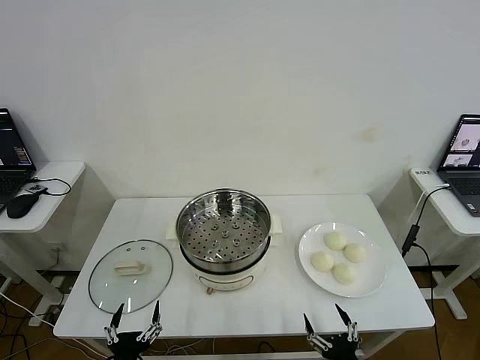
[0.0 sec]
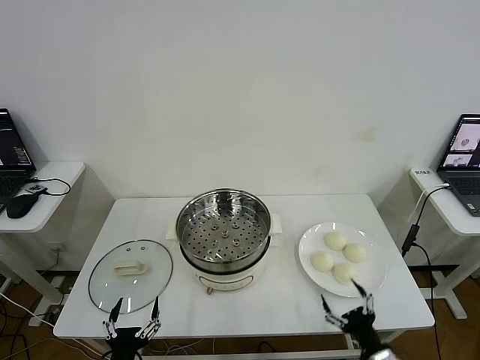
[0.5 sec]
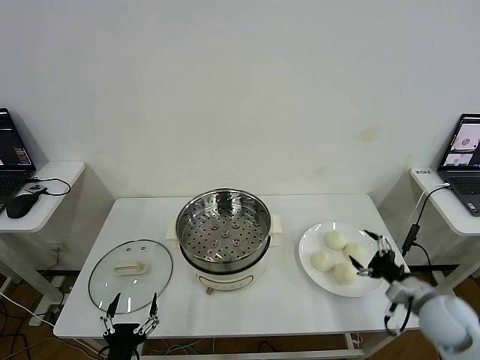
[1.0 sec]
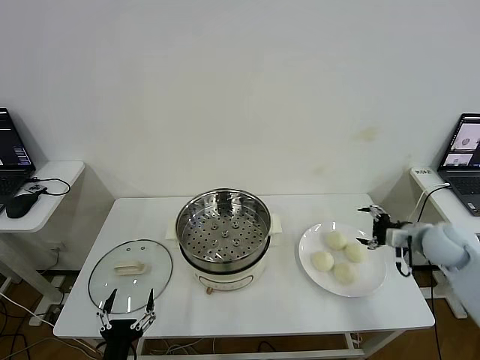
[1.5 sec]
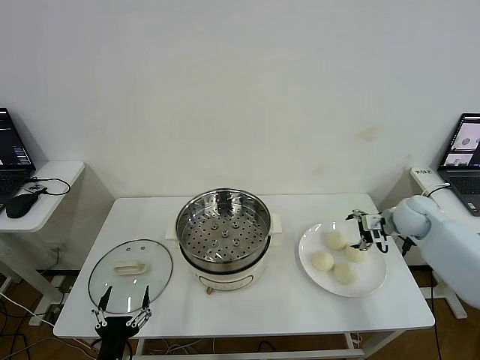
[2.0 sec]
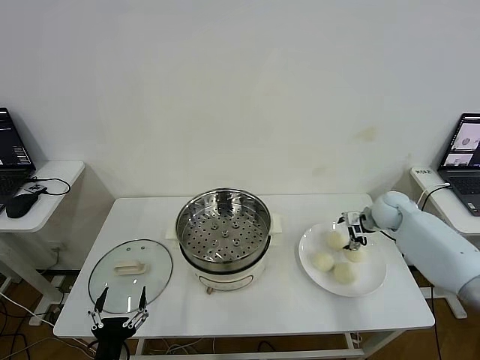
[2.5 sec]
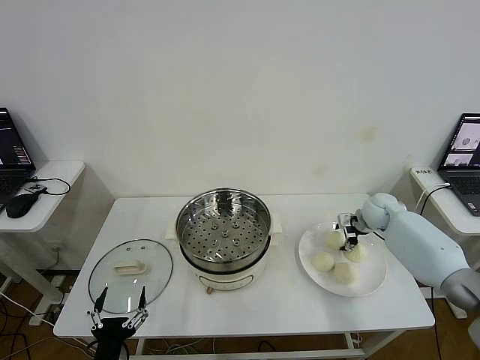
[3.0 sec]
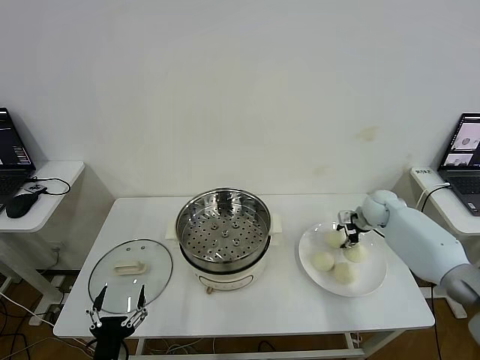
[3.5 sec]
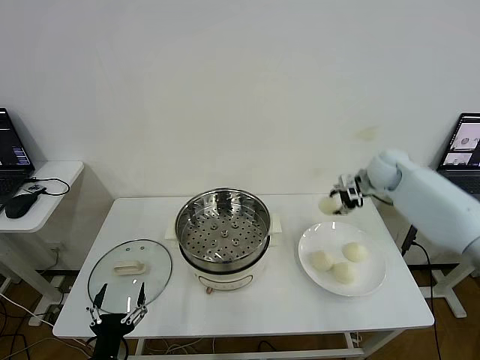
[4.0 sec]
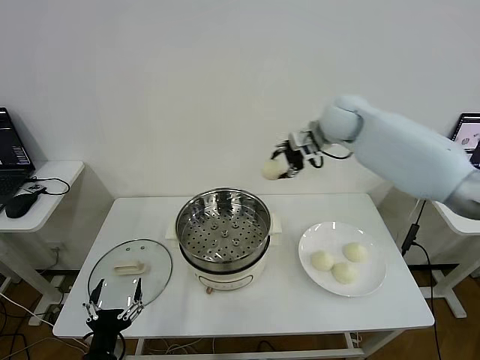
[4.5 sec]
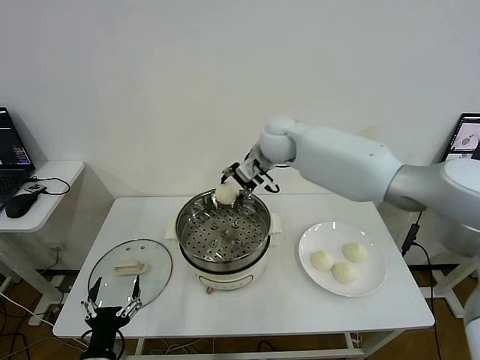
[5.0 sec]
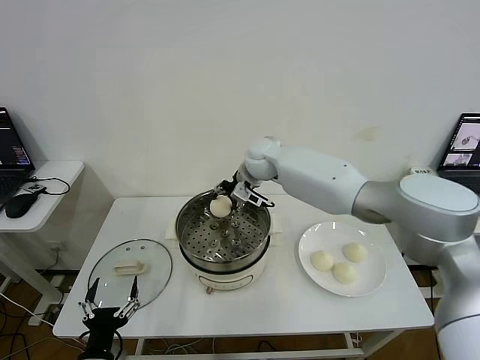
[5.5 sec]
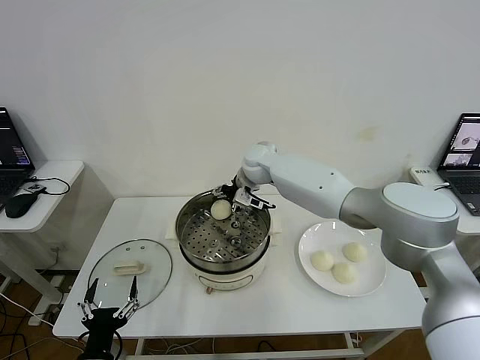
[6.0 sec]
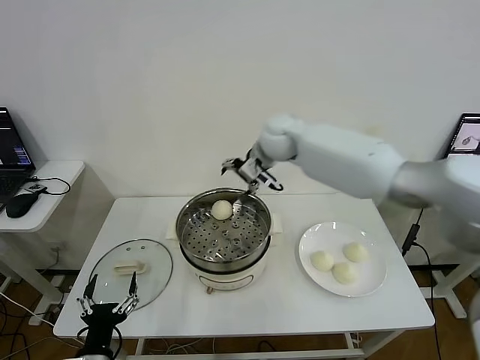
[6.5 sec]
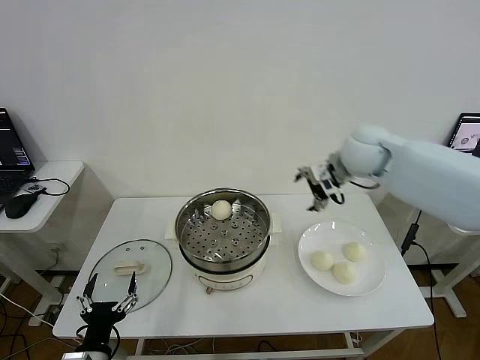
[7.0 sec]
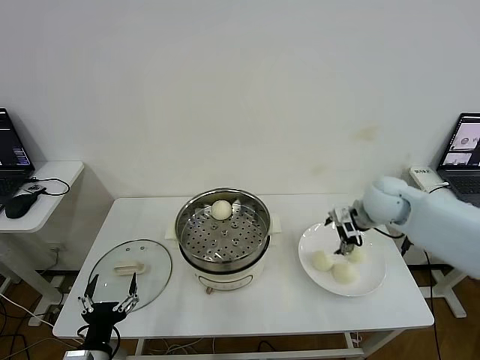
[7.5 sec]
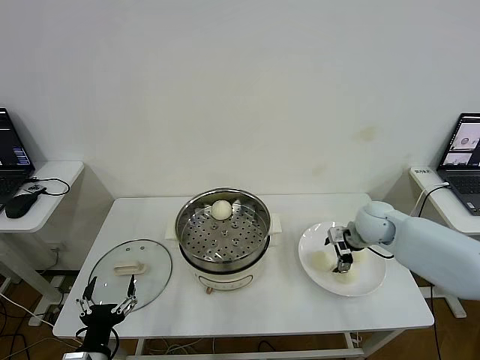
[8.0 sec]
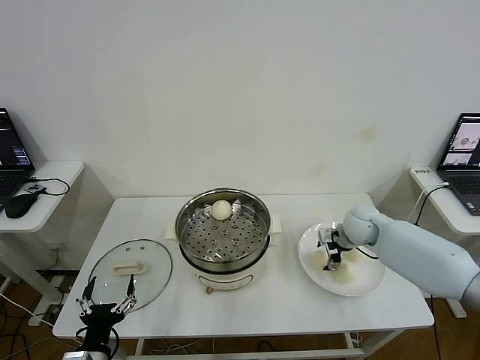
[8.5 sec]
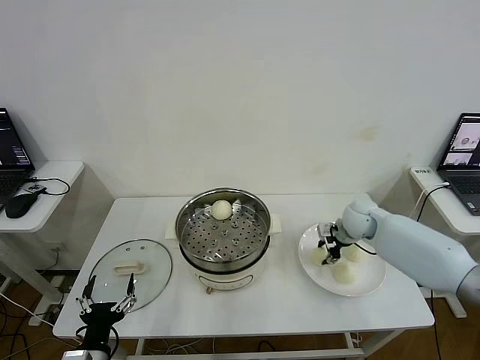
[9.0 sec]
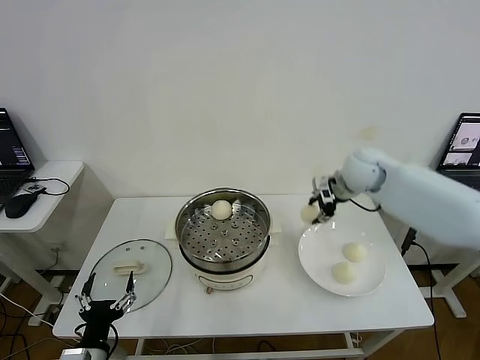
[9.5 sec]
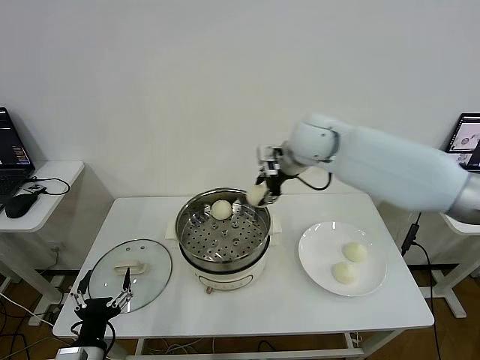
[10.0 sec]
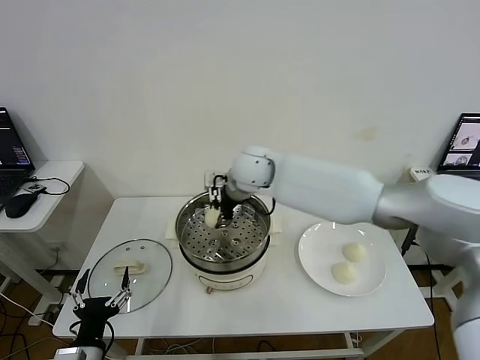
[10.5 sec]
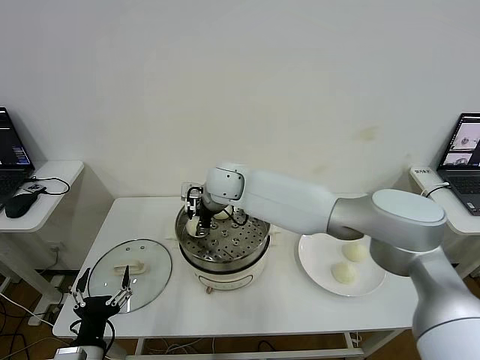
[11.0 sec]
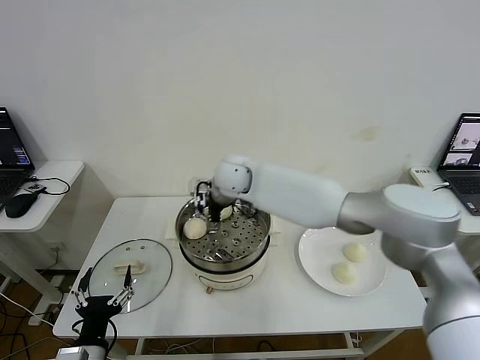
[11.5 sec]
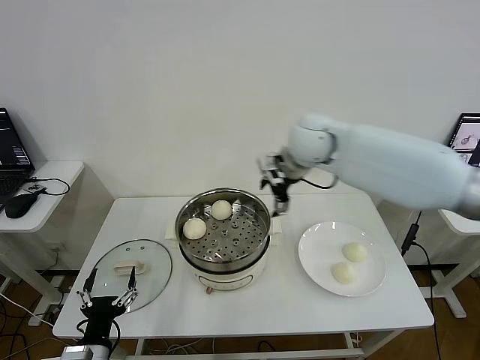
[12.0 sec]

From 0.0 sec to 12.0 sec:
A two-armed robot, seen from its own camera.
Step, from 0.0 sec to 3.0 sec: Grasp the baozi in the plate with right gripper.
Step, from 3.5 sec to 5.5 sec: Place the baozi on the steamer with right gripper.
Step, from 6.5 sec to 8.5 sec: Grasp the baozi in the plate with right gripper.
Step, from 9.0 sec to 11.0 sec: Place the baozi on the steamer with right gripper.
From 2.0 sec to 4.0 sec: The right gripper is displaced upward, forward and to the left by some 15 cm, and closes its fingers.
From 4.0 sec to 6.0 sec: The right gripper moves to the left, about 30 cm, and opens.
From 6.0 sec to 8.0 sec: The right gripper goes approximately 30 cm to the right and backward.
From 8.0 sec to 10.0 sec: The right gripper is displaced to the left and upward by approximately 30 cm, and closes its fingers.
From 10.0 sec to 12.0 sec: The right gripper travels to the left and back again, some 15 cm each way, and opens up.

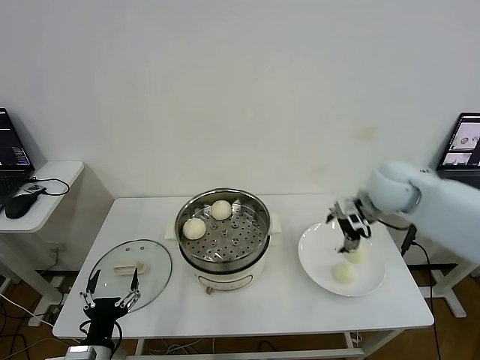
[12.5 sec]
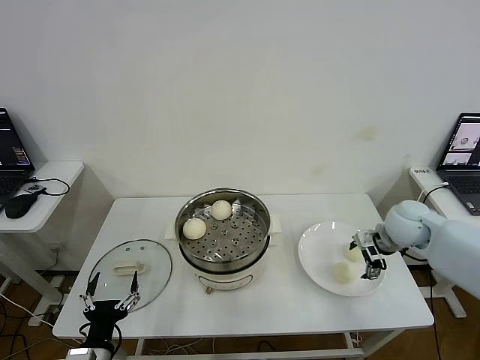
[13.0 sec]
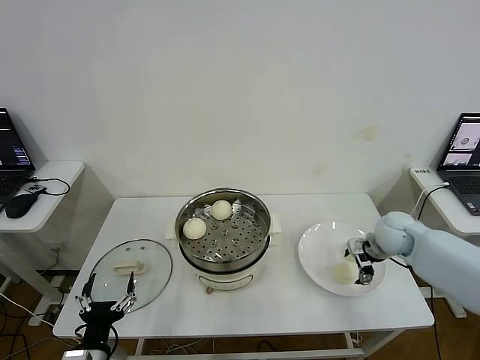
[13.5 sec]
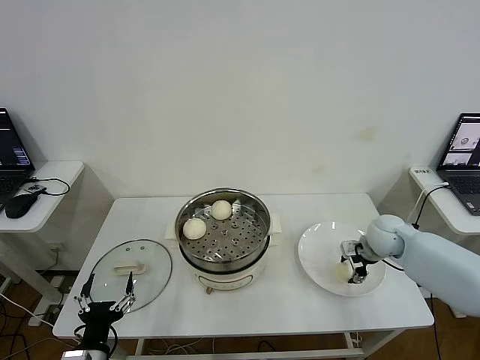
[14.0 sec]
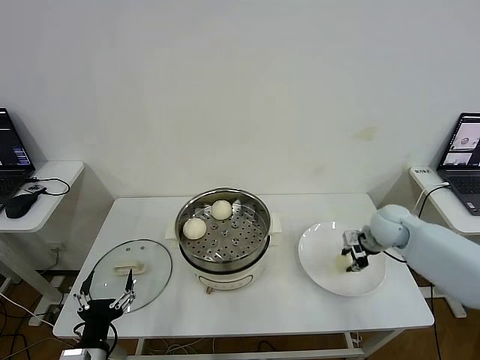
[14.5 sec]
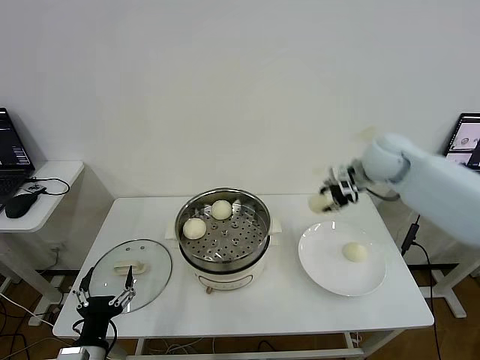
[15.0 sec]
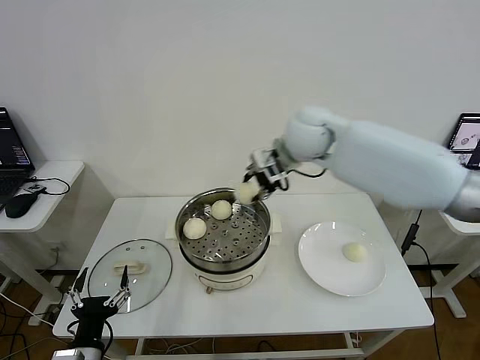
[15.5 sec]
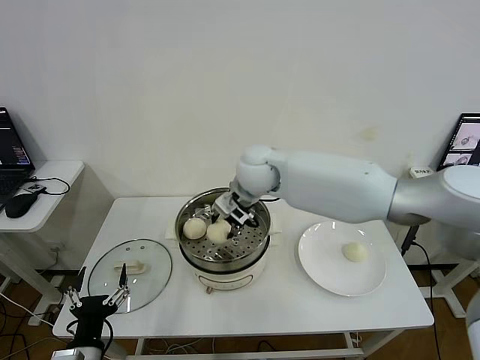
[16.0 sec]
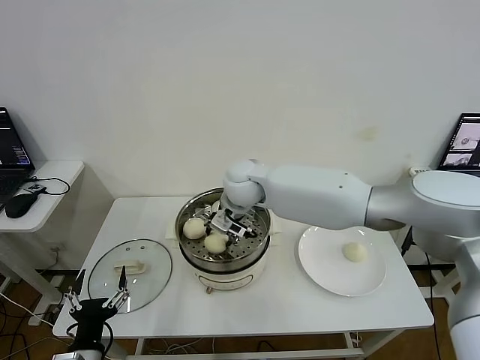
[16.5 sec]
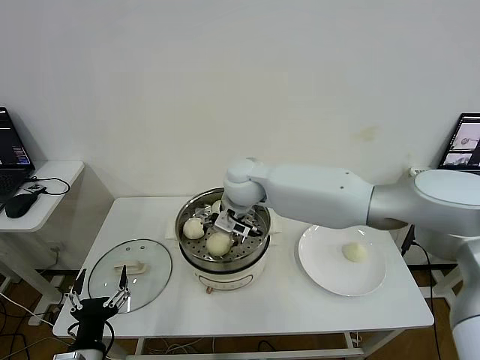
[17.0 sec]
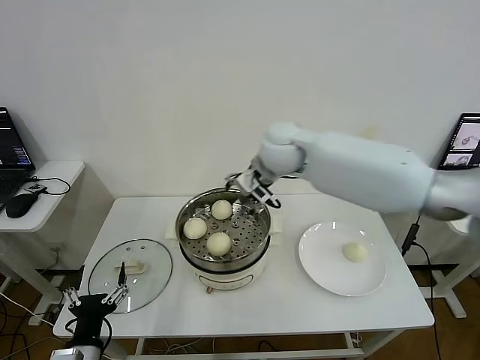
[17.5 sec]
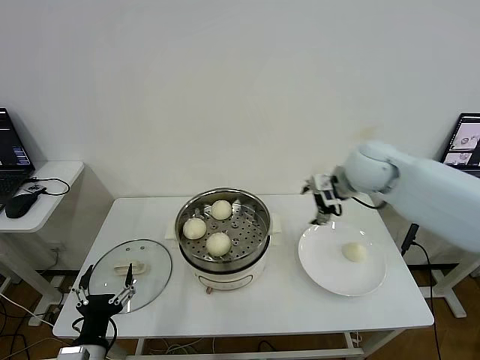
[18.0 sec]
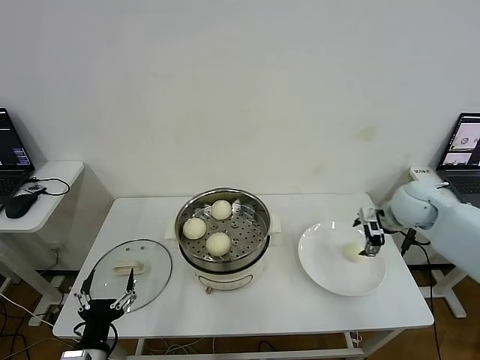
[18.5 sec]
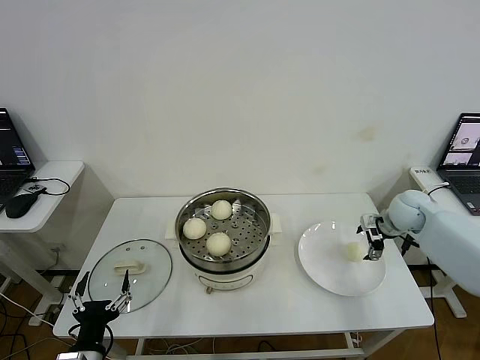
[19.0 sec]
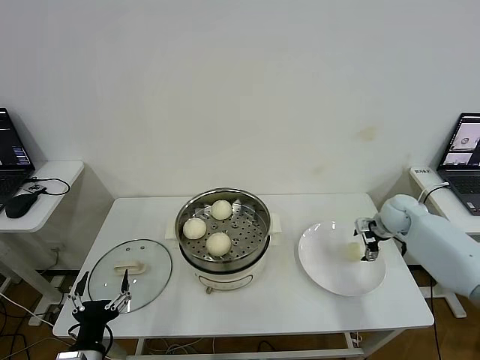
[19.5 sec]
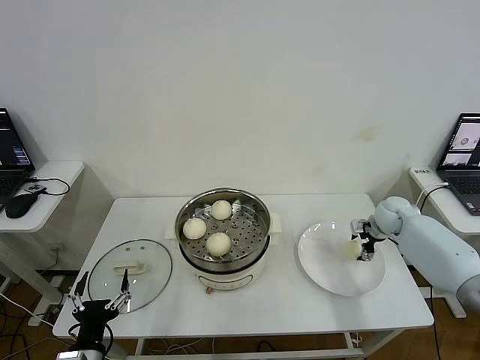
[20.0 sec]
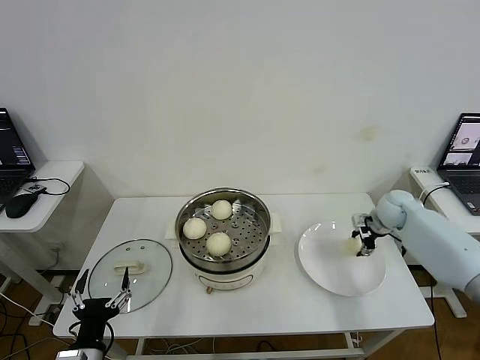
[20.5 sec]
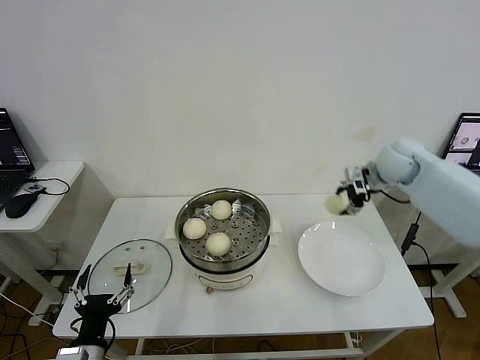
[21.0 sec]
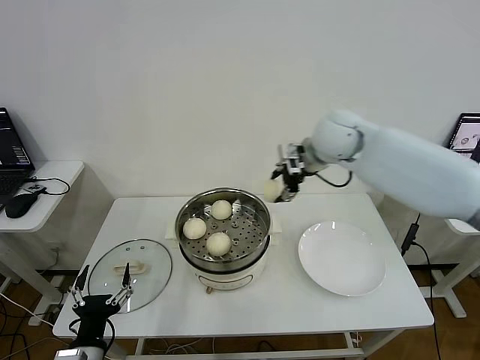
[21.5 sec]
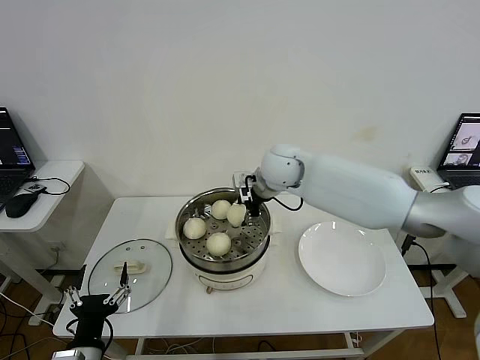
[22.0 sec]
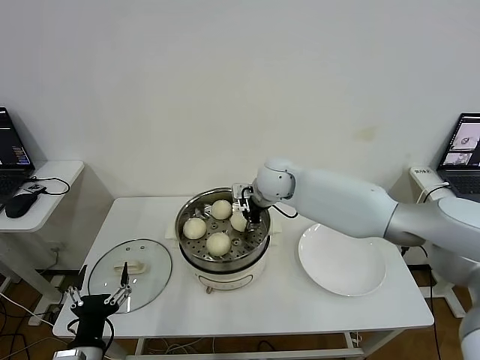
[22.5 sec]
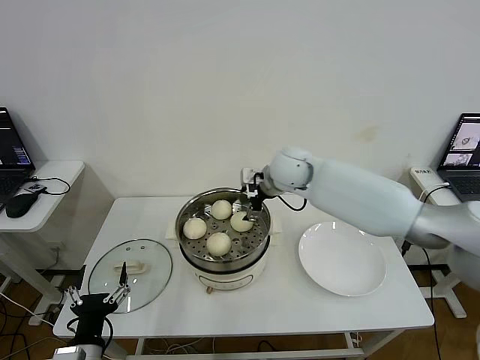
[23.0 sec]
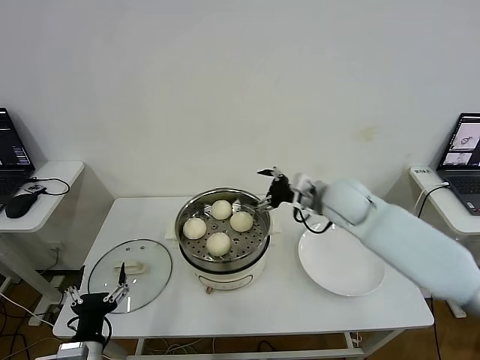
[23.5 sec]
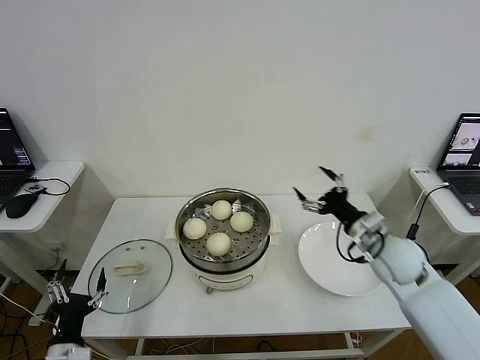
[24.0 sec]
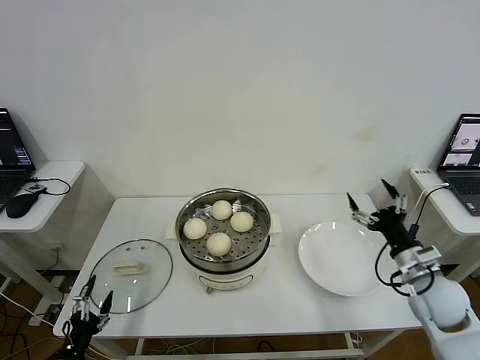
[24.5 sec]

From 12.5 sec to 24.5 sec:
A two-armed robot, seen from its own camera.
Step, from 12.5 sec to 14.0 sec: Grasp the baozi in the plate with right gripper.
Step, from 14.5 sec to 16.5 sec: Place the baozi on the steamer with right gripper.
Step, from 17.5 sec to 20.0 sec: Grasp the baozi in the plate with right gripper.
Step, from 20.5 sec to 22.5 sec: Place the baozi on the steamer with right gripper.
From 12.5 sec to 14.5 sec: The right gripper shifts some 10 cm downward, and closes.
From 14.5 sec to 16.5 sec: The right gripper heads to the left, covering some 35 cm.
From 16.5 sec to 18.5 sec: The right gripper is displaced to the right by some 40 cm, and opens up.
From 18.5 sec to 20.5 sec: The right gripper heads downward and forward, covering some 10 cm, and closes up.
From 20.5 sec to 22.5 sec: The right gripper shifts roughly 35 cm to the left.
From 22.5 sec to 24.5 sec: The right gripper travels to the right and backward by roughly 40 cm, and opens up. Meanwhile the left gripper is displaced to the left and downward by about 15 cm.

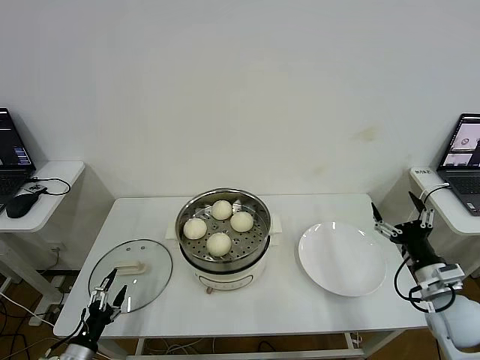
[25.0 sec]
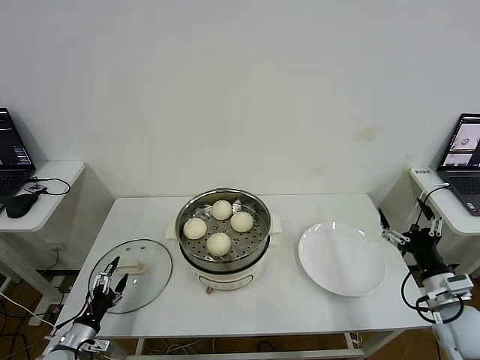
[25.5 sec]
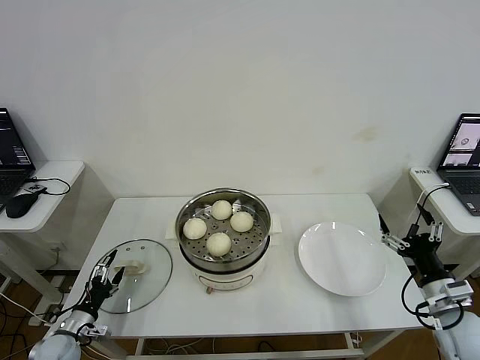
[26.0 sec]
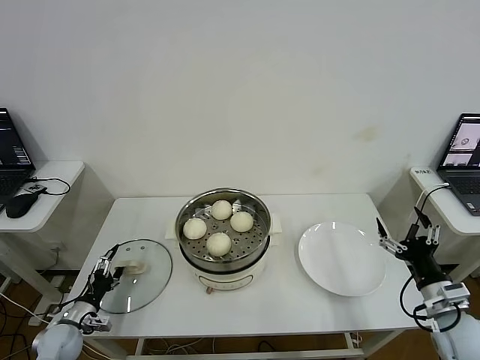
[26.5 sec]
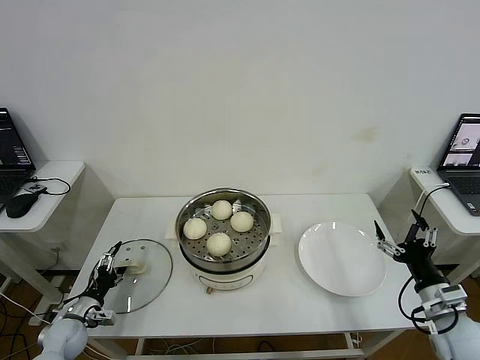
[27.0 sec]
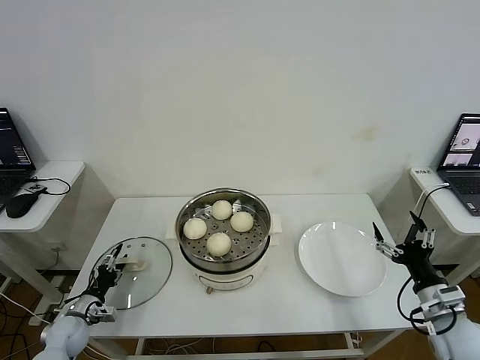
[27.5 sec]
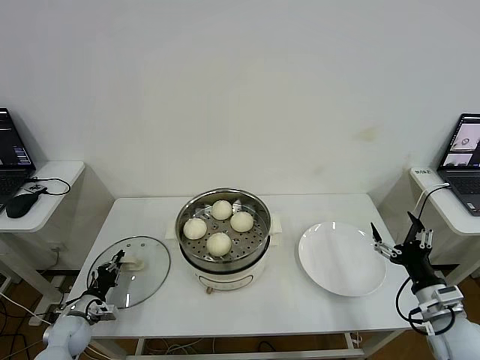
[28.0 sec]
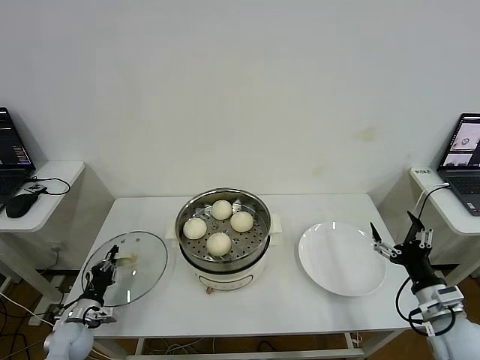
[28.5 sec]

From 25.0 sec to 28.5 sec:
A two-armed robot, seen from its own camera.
Step, from 25.0 sec to 28.0 sec: Grasp the pot lid with left gripper.
From 25.0 sec to 27.0 sec: The left gripper is displaced forward by roughly 15 cm.
From 27.0 sec to 28.5 sec: The left gripper closes.
